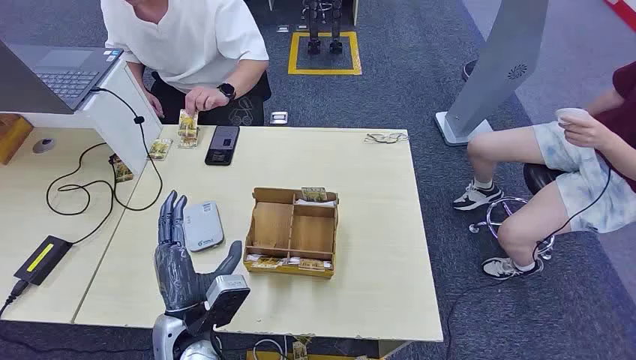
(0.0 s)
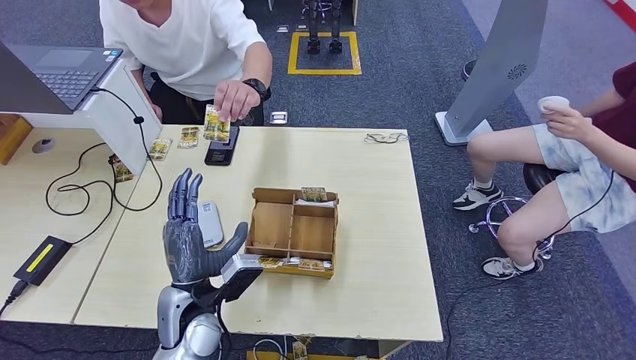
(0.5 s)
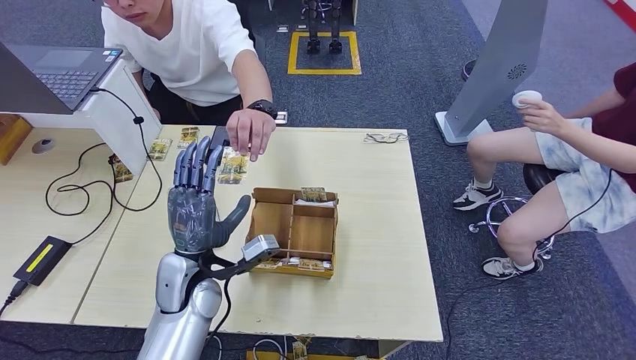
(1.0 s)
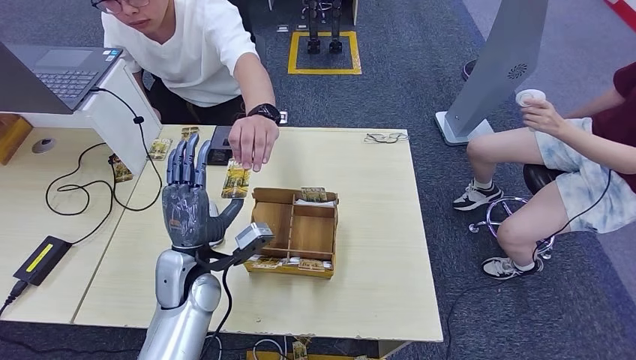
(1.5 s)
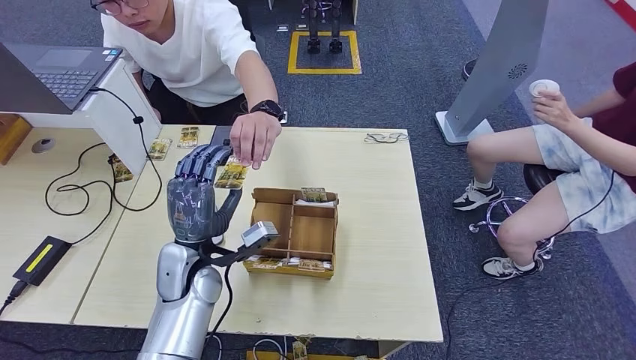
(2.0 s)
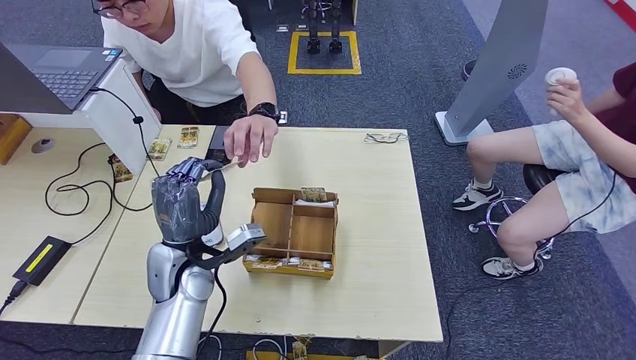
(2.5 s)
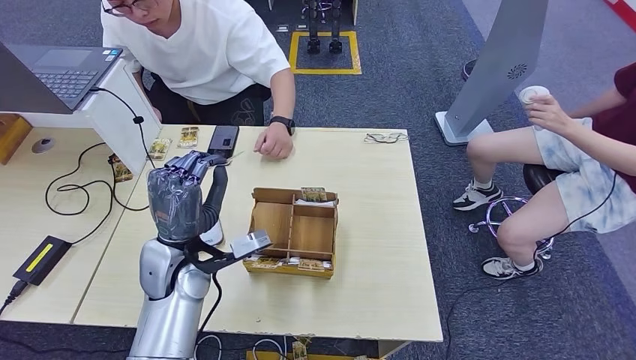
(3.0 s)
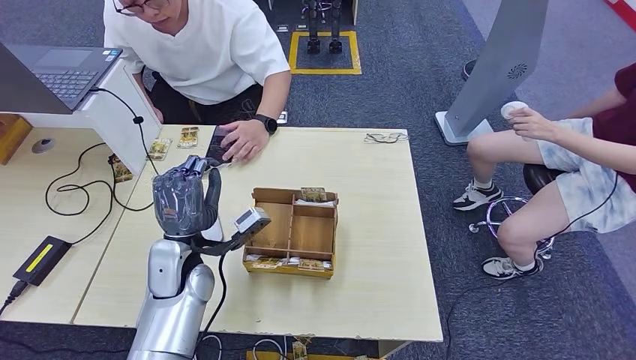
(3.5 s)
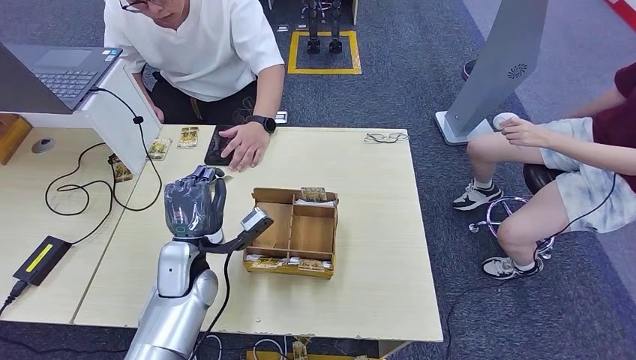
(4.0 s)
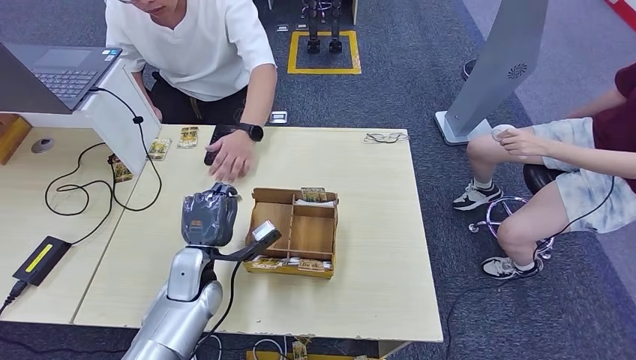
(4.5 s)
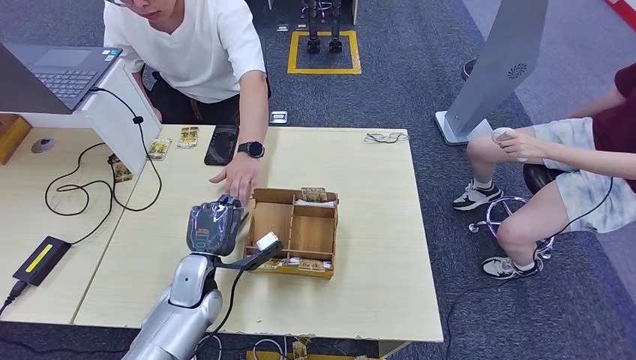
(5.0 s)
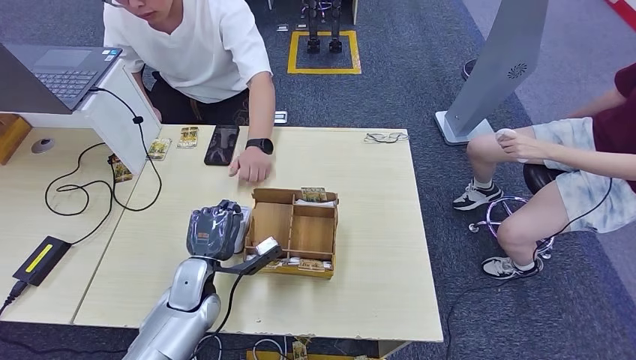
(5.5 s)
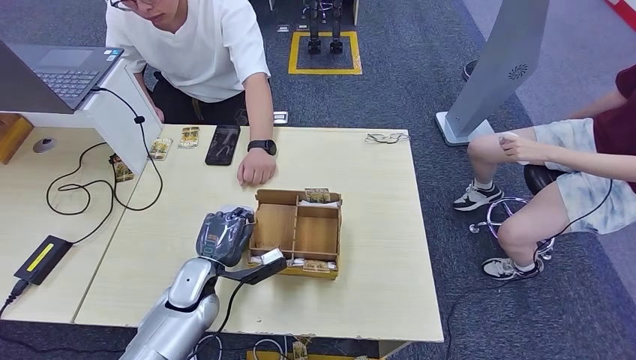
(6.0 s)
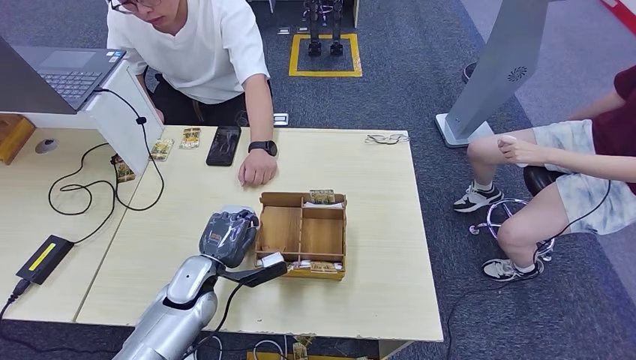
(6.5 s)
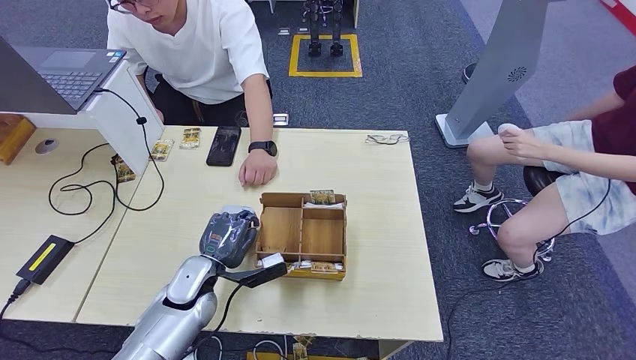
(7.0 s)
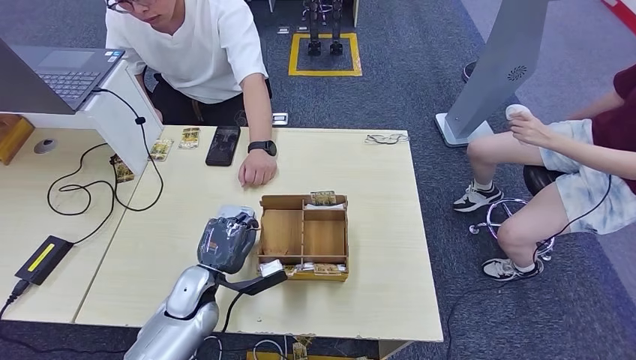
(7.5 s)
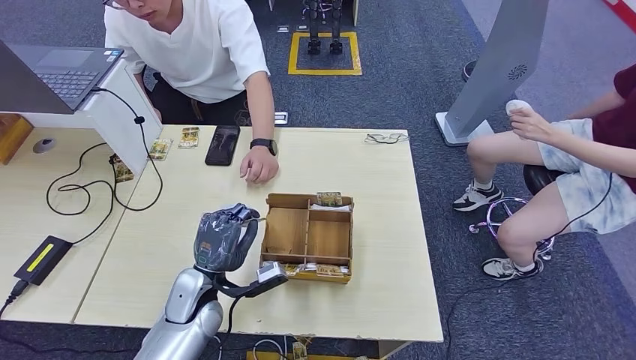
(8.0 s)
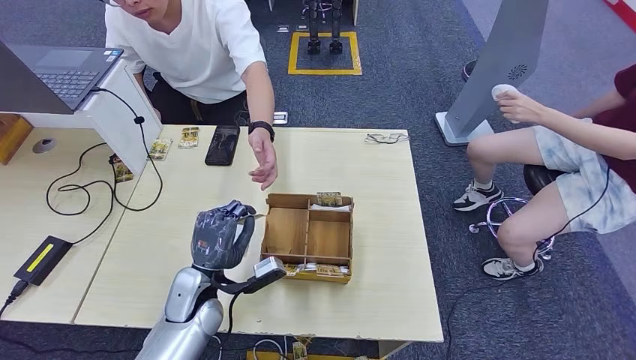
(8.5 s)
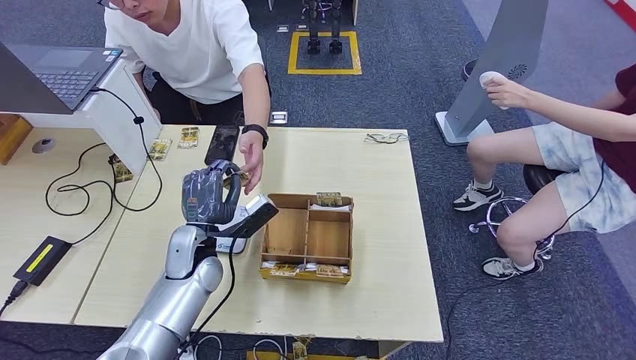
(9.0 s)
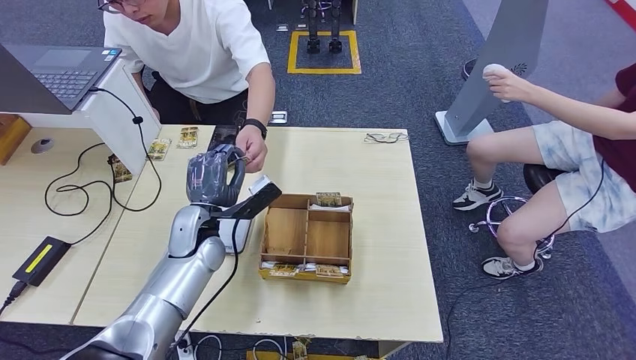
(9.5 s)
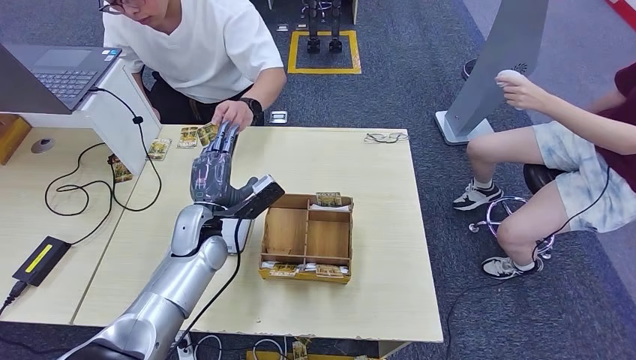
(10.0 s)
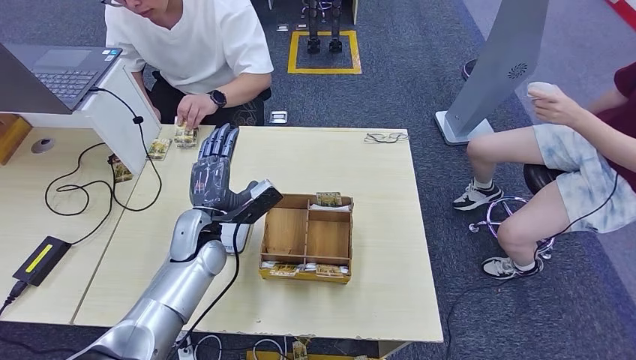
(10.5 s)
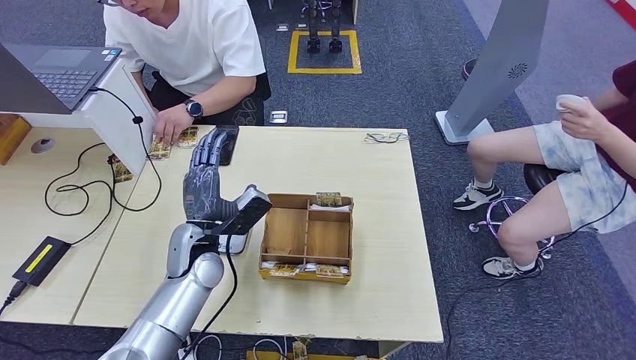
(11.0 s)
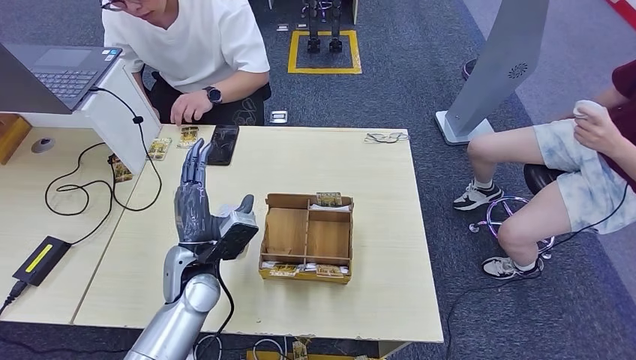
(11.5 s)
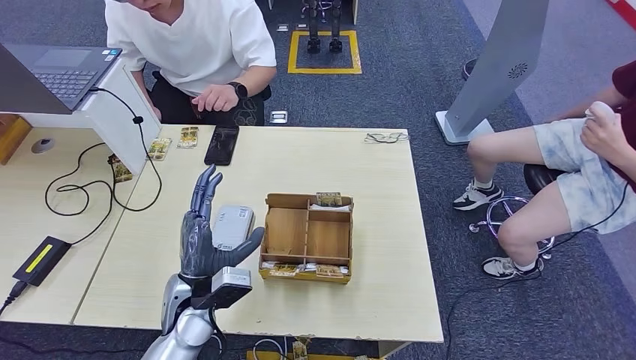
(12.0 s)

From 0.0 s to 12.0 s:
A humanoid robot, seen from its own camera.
Step, from 0.0 s to 3.0 s: Take the ID card from the person's hand.
Step, from 3.5 s to 6.5 s: Place the ID card on the card reader.
Step, from 7.0 s to 10.5 s: Hand the ID card to the person.
From 2.0 s to 4.0 s: The hands make only small movements.
From 4.0 s to 6.0 s: The left hand heads downward, covering some 5 cm.
From 8.0 s to 10.0 s: The left hand travels forward and upward by roughly 10 cm.
From 10.0 s to 12.0 s: The left hand travels backward by roughly 10 cm.

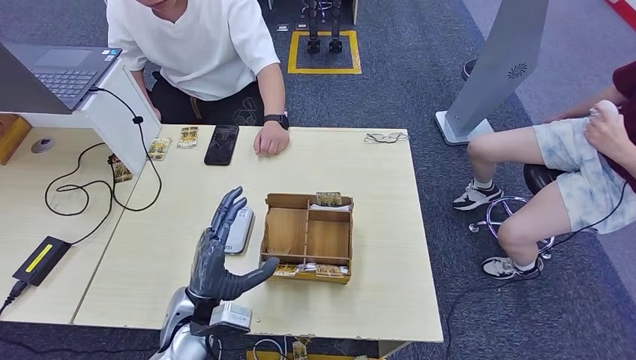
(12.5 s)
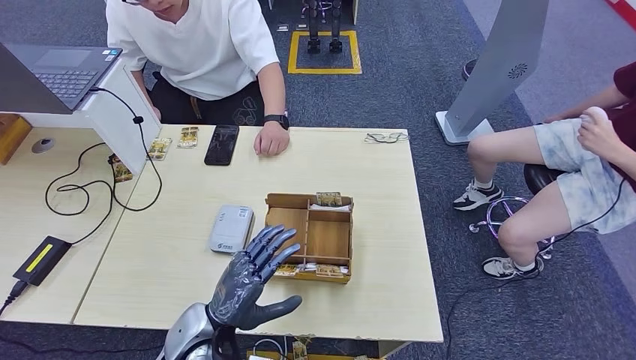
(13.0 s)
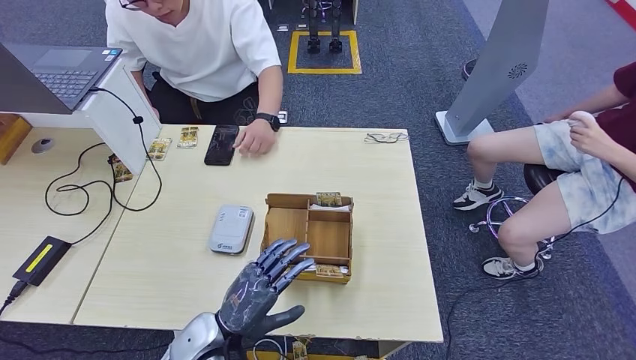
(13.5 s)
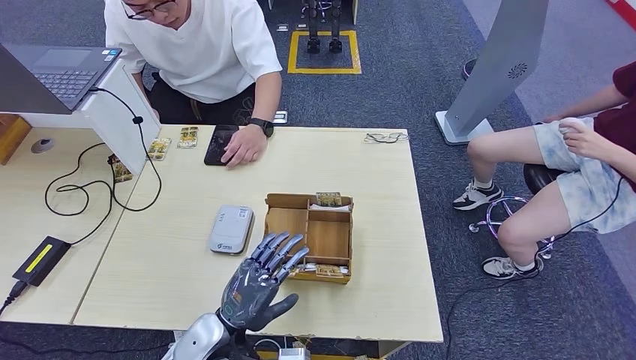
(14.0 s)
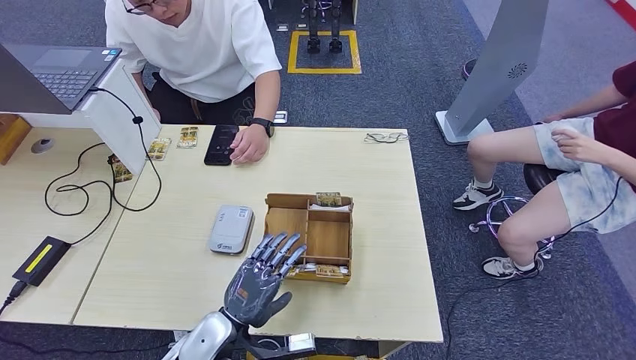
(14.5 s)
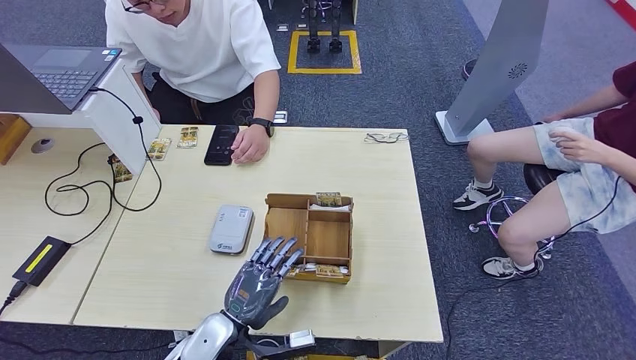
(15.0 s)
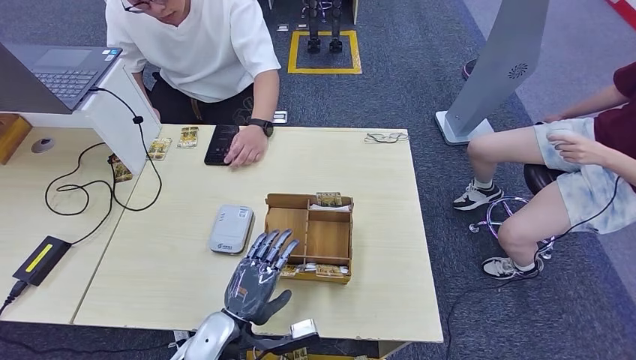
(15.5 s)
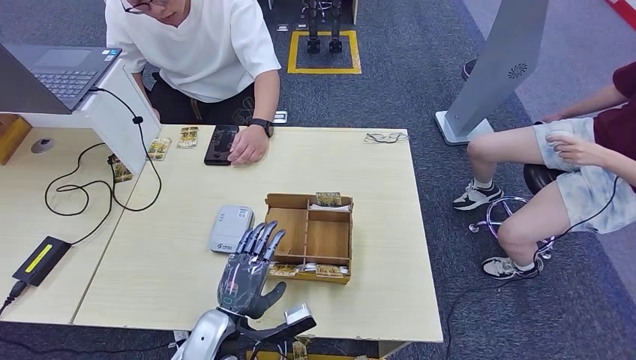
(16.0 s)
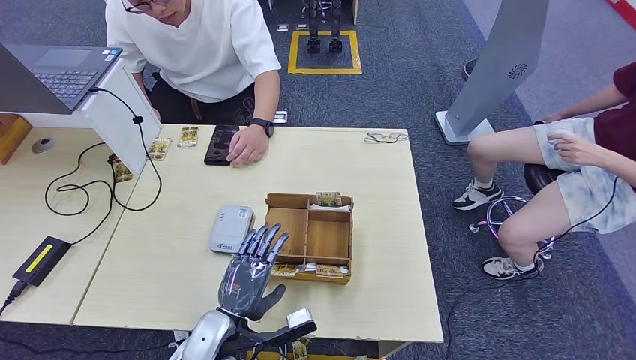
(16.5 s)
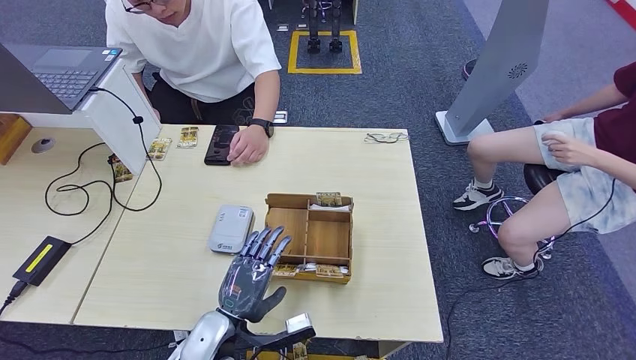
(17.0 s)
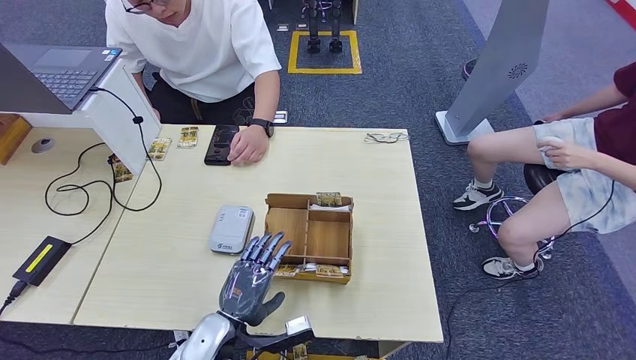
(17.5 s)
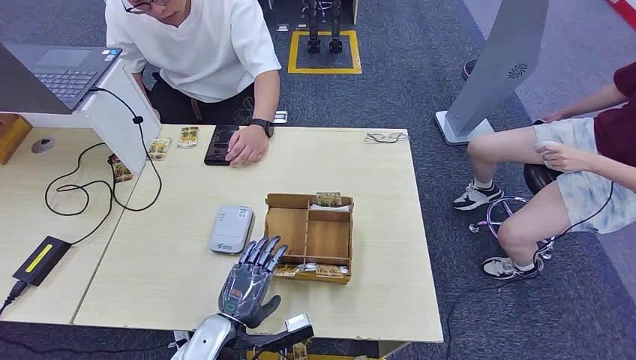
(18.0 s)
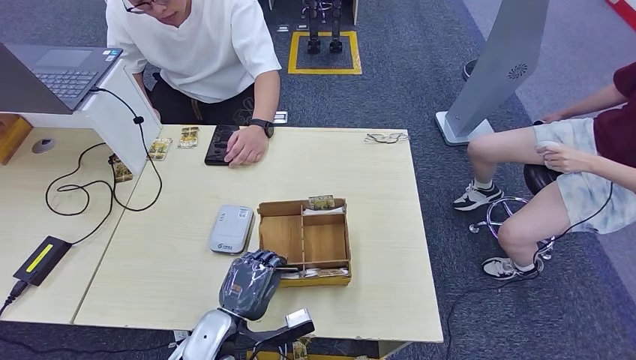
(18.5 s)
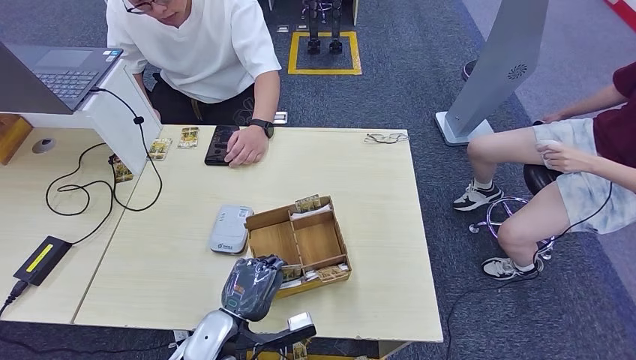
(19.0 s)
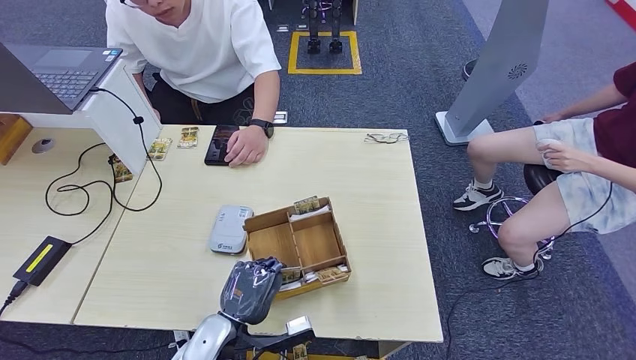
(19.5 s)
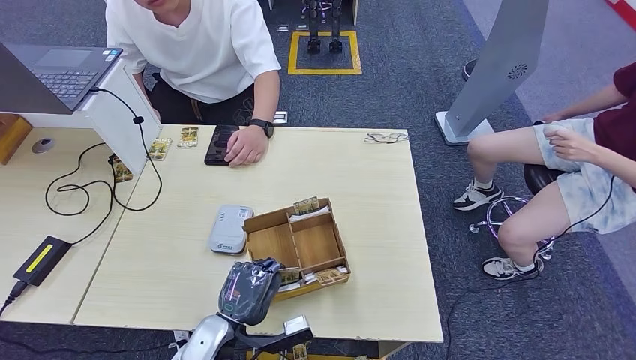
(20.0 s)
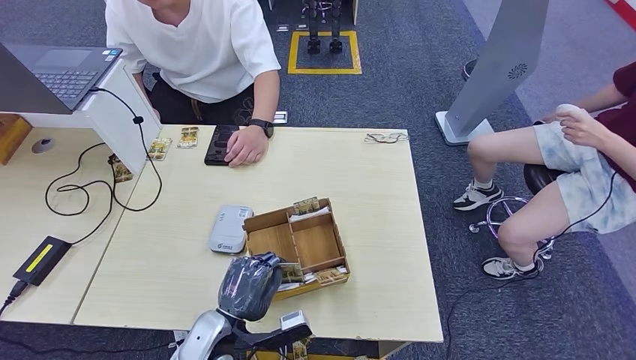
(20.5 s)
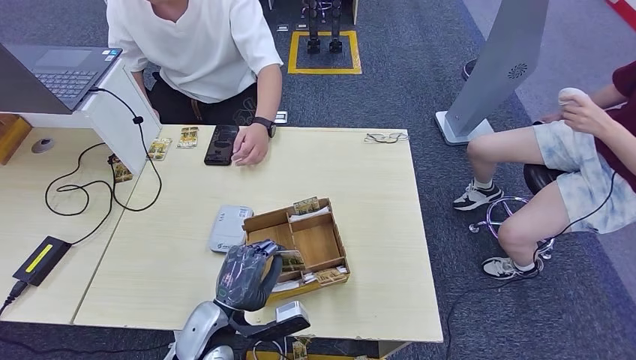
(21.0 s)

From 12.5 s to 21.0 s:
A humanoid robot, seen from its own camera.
Step, from 12.5 s to 20.5 s: Pick up the room key from the key card box.
From 12.5 s to 14.5 s: The left hand moves some 5 cm.
From 14.5 s to 21.0 s: The hands stay close to where they were, moving slightly.
